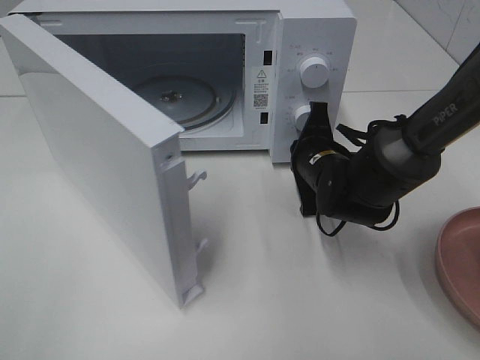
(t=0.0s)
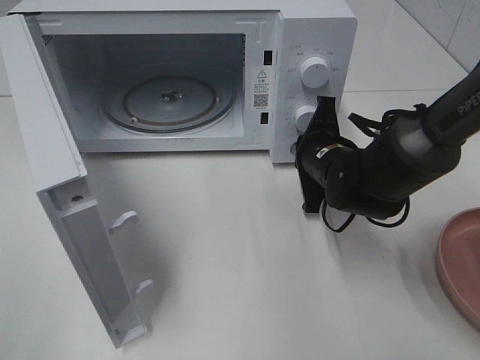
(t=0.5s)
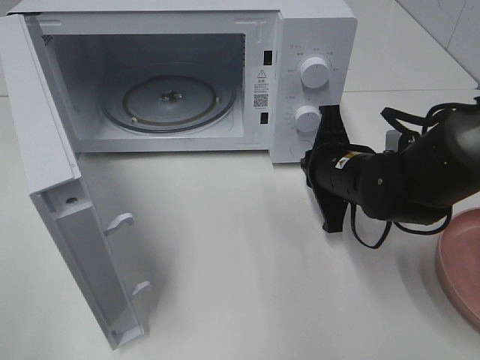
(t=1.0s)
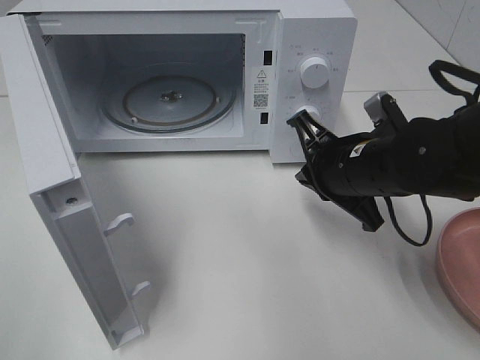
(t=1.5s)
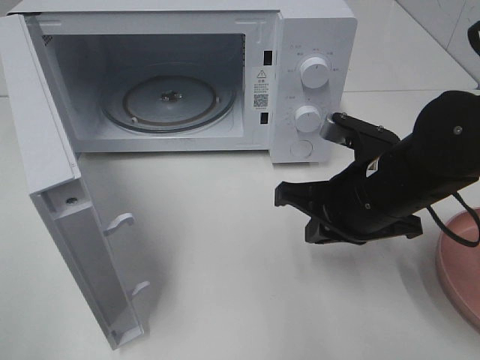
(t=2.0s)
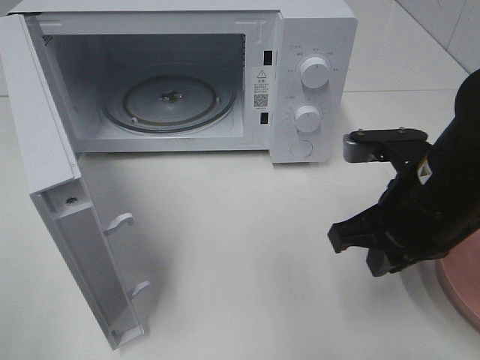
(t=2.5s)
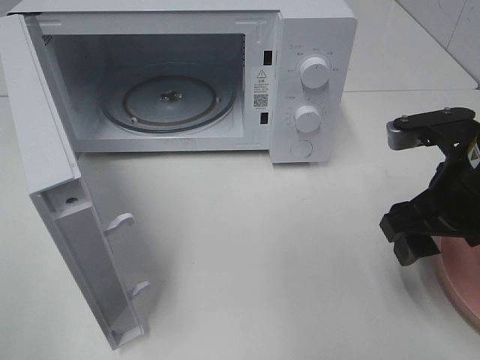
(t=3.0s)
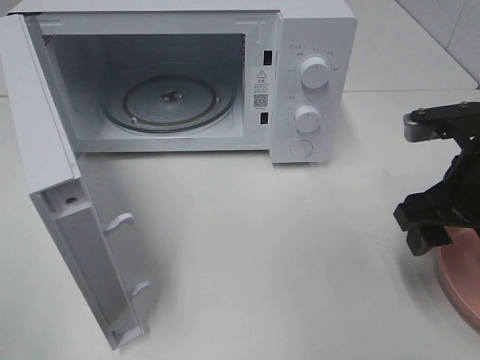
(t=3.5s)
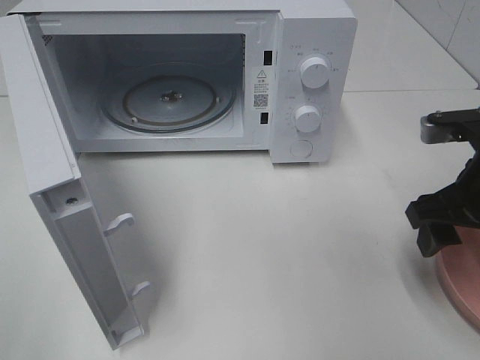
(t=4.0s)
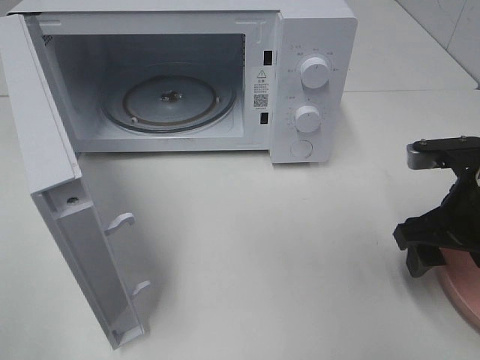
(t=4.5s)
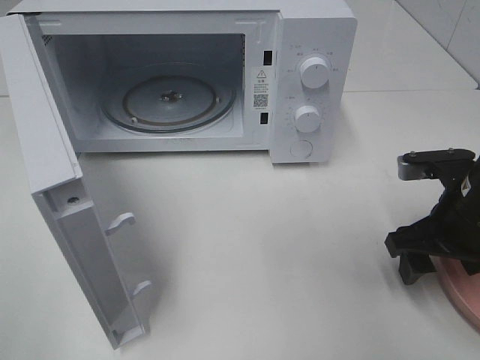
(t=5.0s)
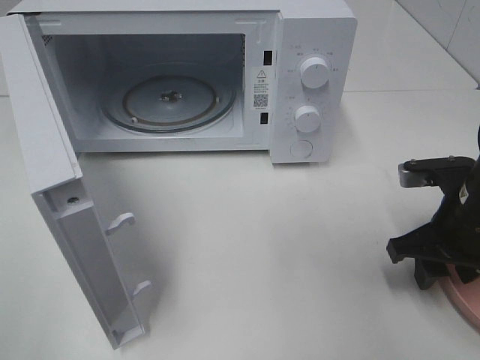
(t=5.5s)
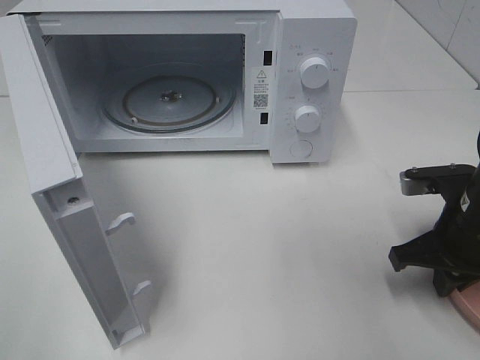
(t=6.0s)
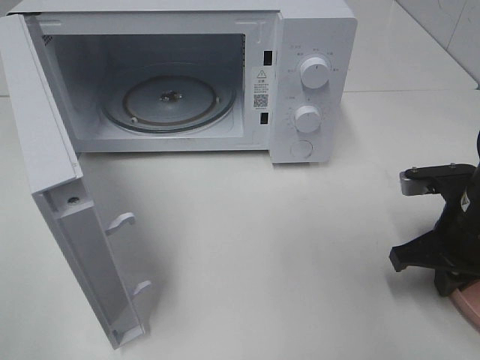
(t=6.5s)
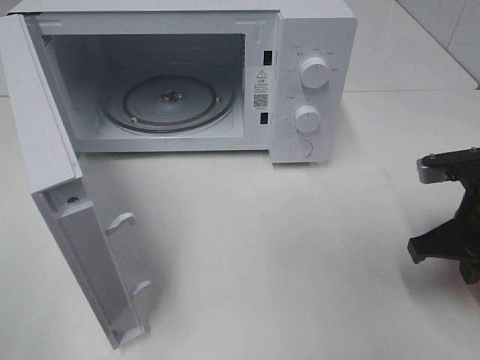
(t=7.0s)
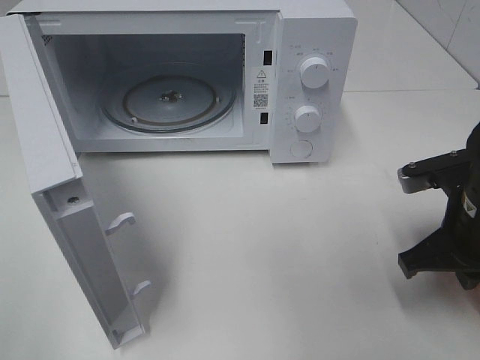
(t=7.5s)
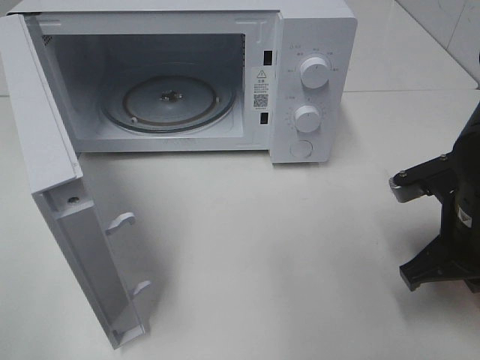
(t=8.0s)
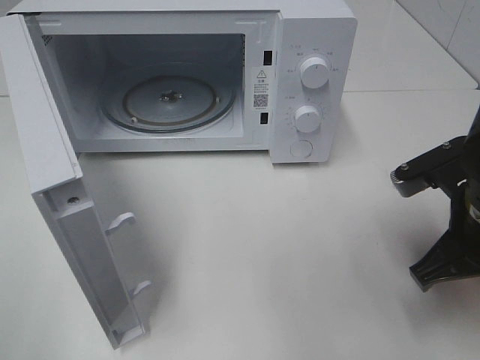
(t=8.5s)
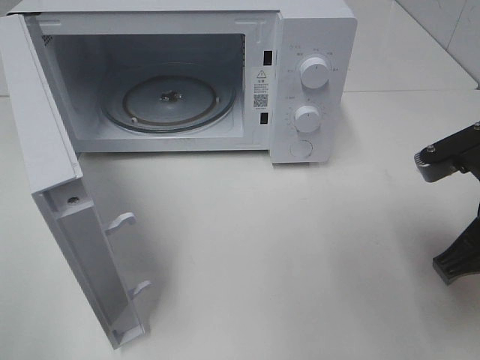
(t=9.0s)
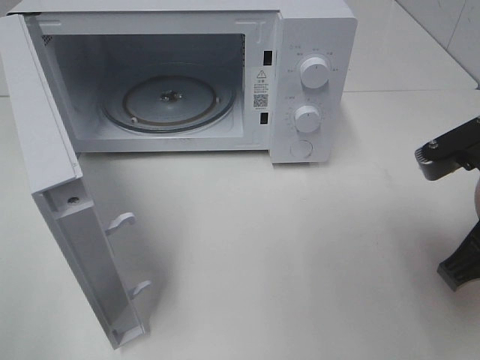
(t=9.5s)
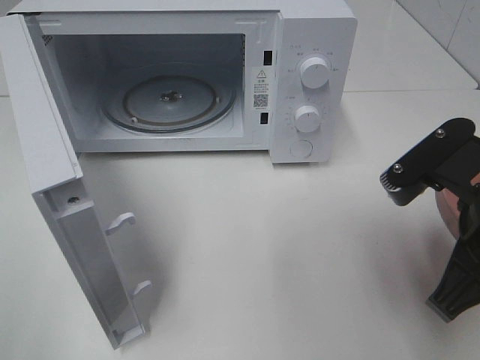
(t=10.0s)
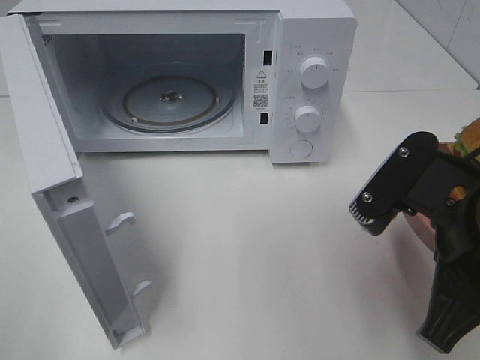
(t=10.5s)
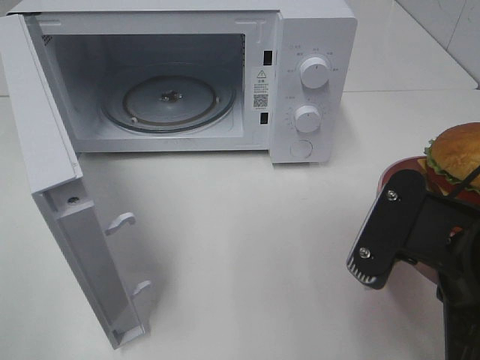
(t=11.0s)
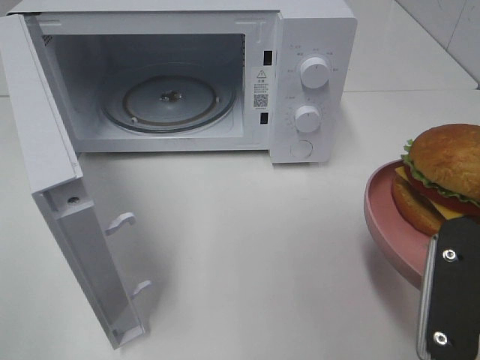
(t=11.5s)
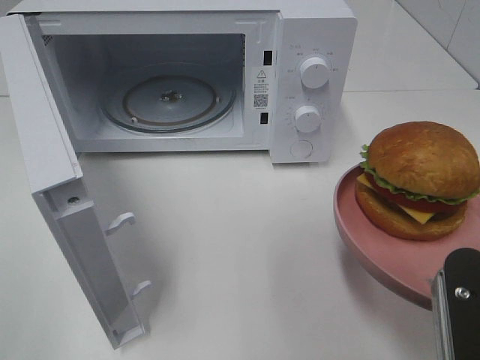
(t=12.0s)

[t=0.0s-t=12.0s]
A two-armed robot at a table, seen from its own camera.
Task of the whole recording: Heat the burger.
Step, t=1.0s to t=7.0s: Right hand: grab the plate with the hamburger.
t=0.0s to t=2.0s: The right gripper shifts roughly 15 cm backward and upward.
t=2.0s to t=4.0s: The right gripper is displaced to the right by roughly 10 cm, and opens.
t=4.0s to t=6.0s: The right gripper travels downward by some 5 cm, and closes up.
t=6.0s to t=8.0s: There are only small adjustments of the grippers.
t=8.0s to t=10.0s: The right gripper moves upward and backward, roughly 10 cm.
t=10.0s to t=12.0s: The right gripper shifts some 10 cm backward.

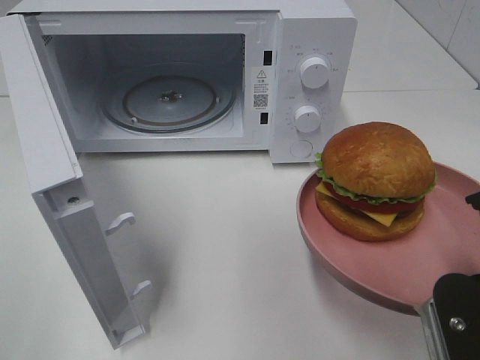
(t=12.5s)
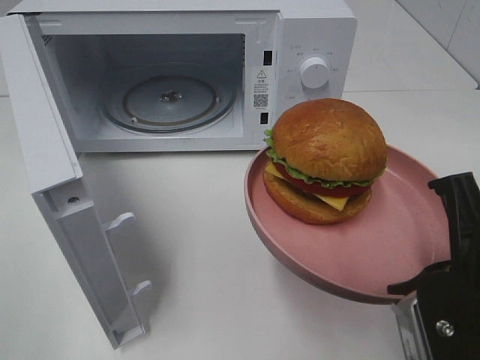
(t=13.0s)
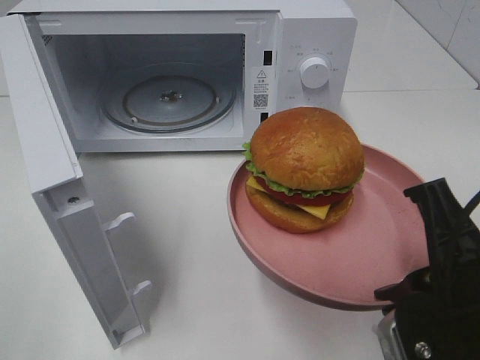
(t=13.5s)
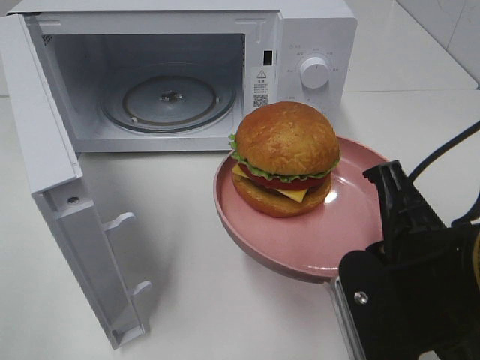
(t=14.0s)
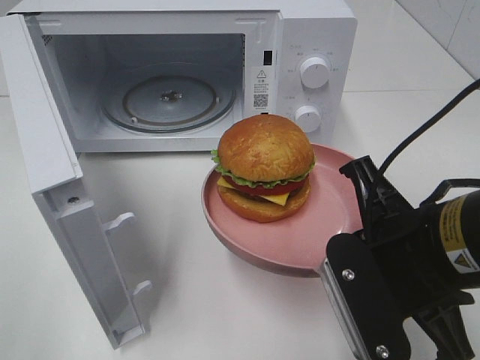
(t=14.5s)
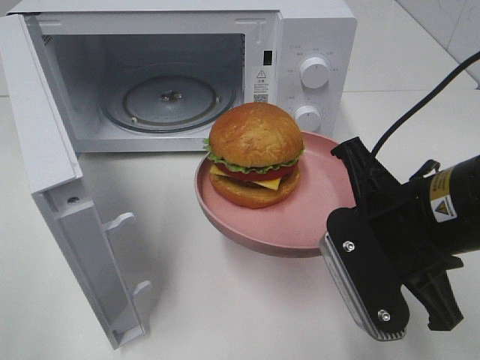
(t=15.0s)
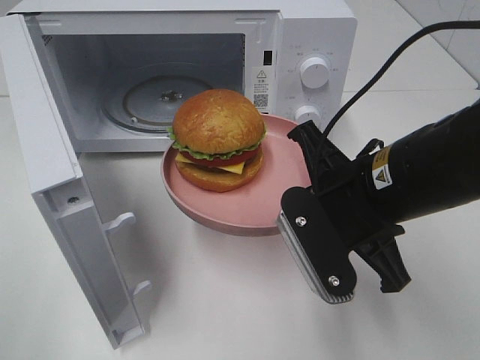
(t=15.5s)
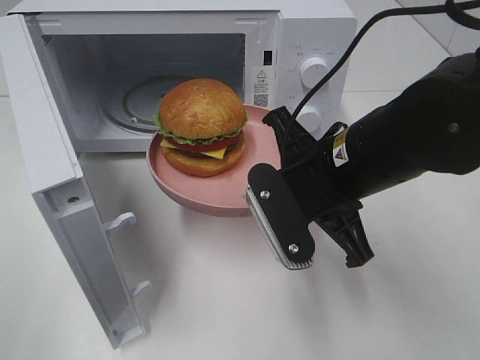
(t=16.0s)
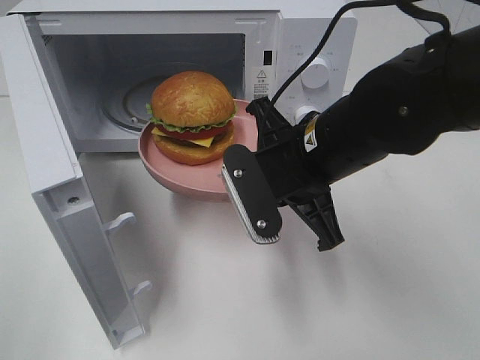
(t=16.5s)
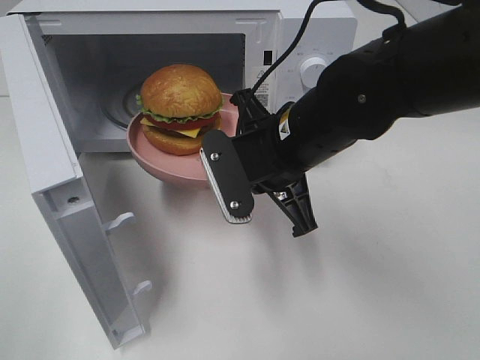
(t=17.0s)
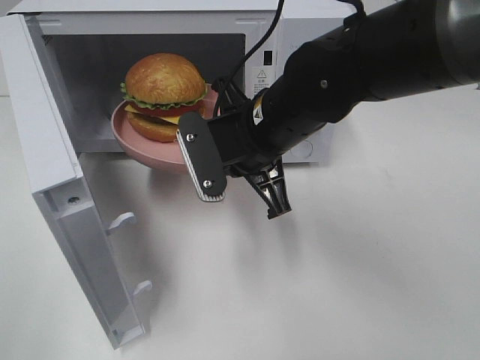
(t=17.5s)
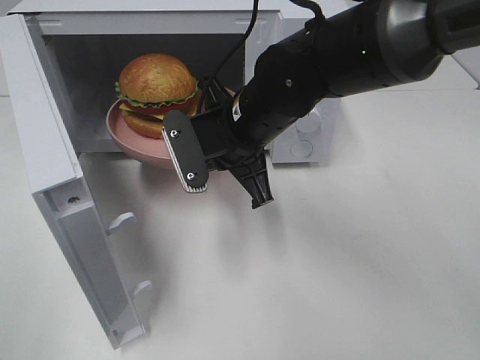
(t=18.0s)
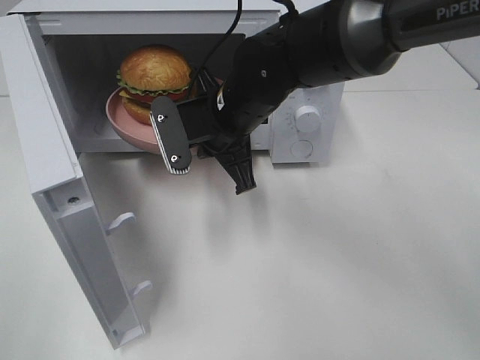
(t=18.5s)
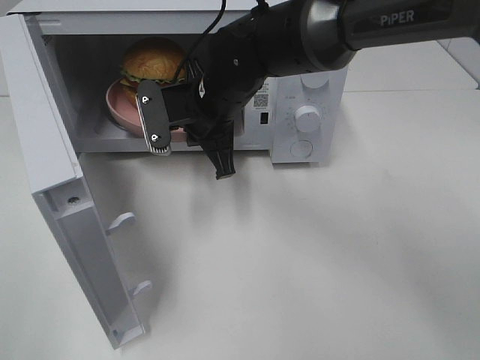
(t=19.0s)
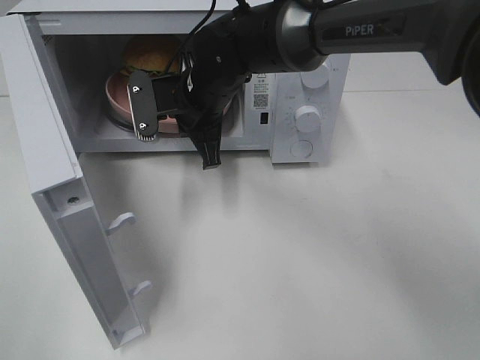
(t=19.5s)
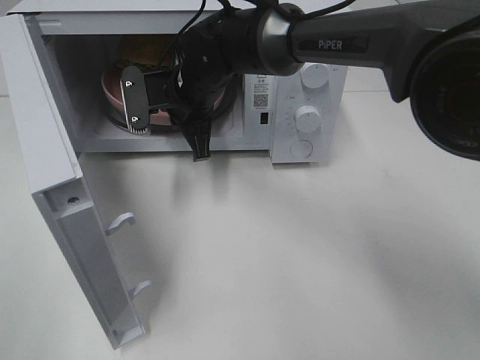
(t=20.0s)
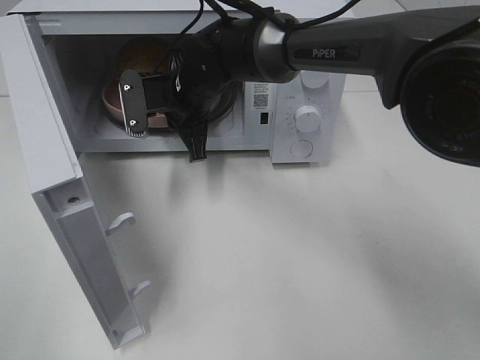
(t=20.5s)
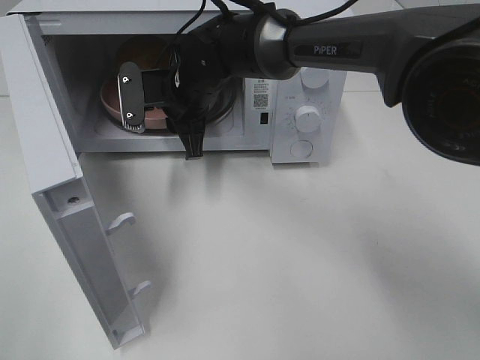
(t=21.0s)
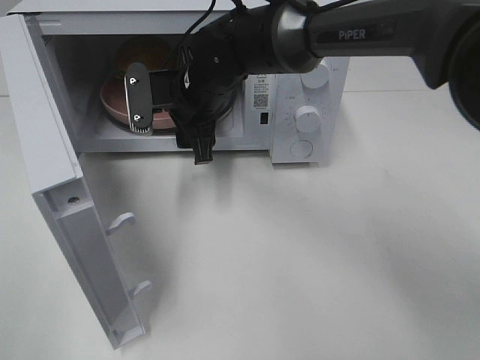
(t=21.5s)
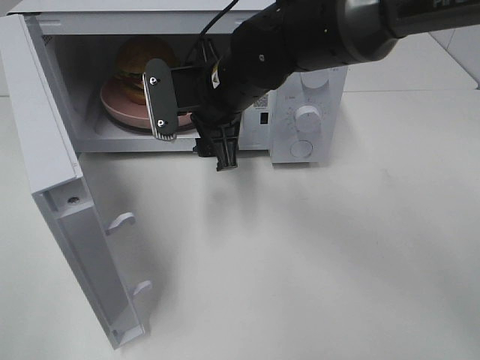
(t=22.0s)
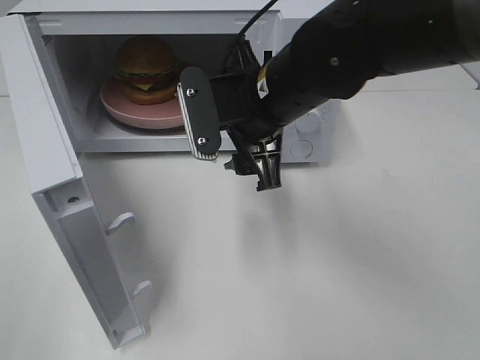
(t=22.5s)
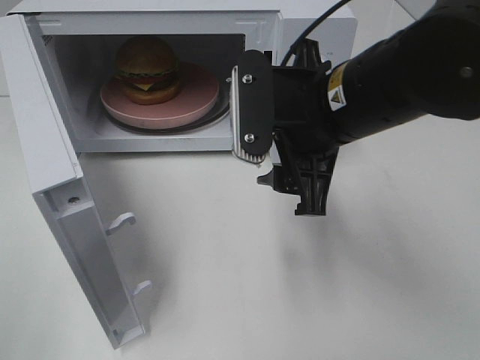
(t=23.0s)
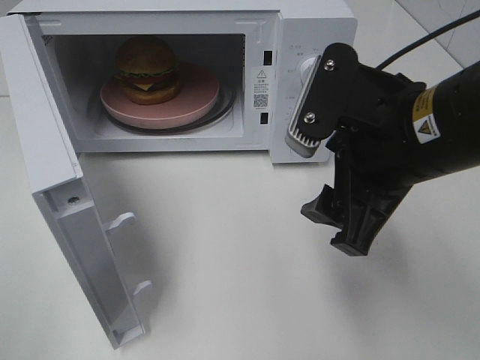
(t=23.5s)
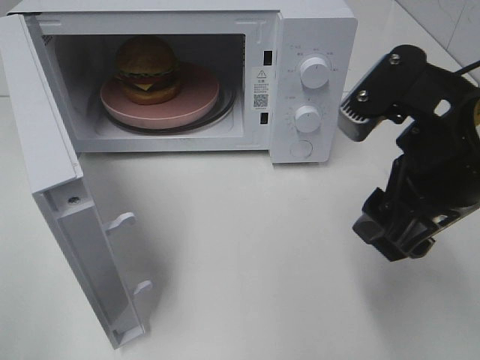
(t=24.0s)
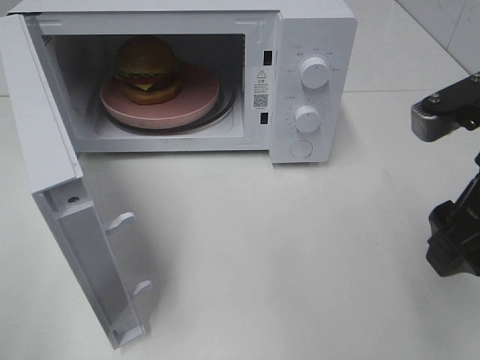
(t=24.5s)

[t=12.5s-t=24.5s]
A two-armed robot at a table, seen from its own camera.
Task of the whole recording: Heat the burger.
Step, t=12.5s to t=21.0s: Right hand: place the plate in the microwave.
t=12.5s to t=14.5s: The right gripper travels forward by approximately 5 cm.
t=14.5s to t=16.5s: The right gripper shifts roughly 15 cm forward and to the left.
t=16.5s to t=18.5s: The right gripper heads forward and to the left, covering roughly 10 cm.
t=18.5s to t=20.5s: The right gripper is displaced forward and to the left by roughly 10 cm.
t=20.5s to t=22.5s: The right gripper is displaced backward, to the right and upward by about 15 cm, and opens.
t=22.5s to t=24.5s: The right gripper heads to the right and backward, covering roughly 20 cm.

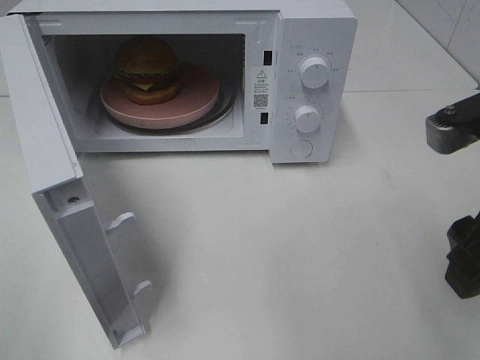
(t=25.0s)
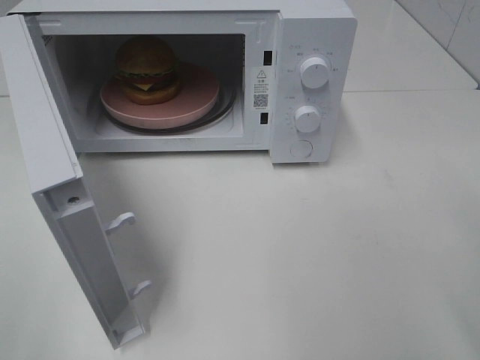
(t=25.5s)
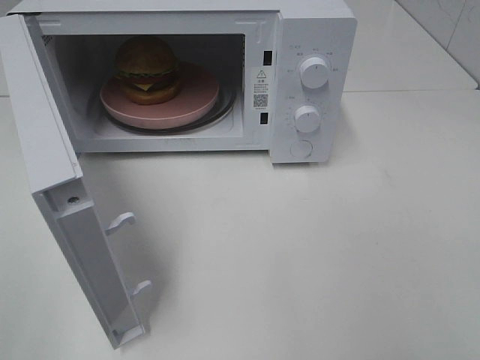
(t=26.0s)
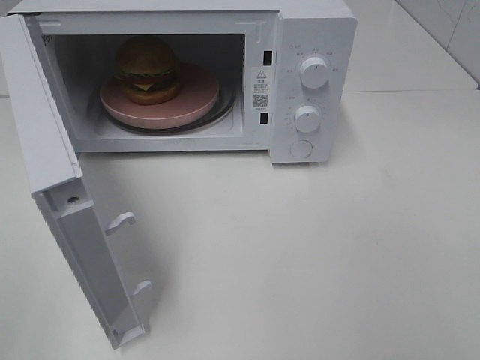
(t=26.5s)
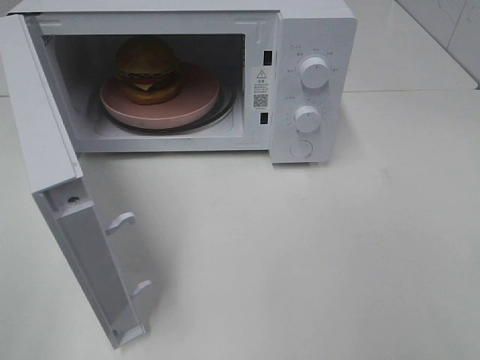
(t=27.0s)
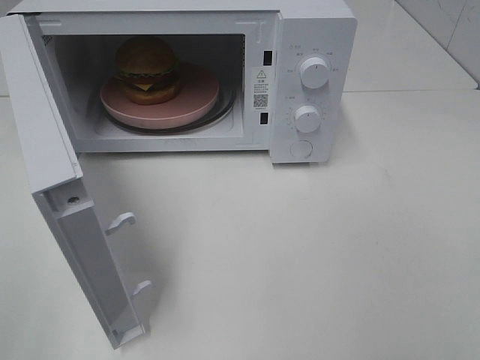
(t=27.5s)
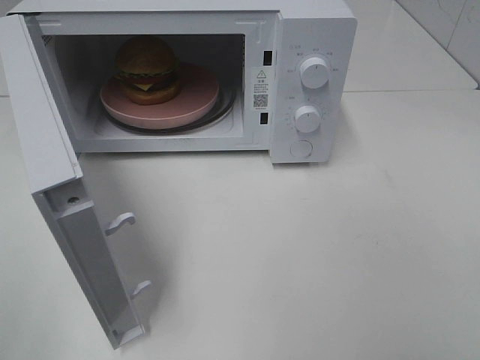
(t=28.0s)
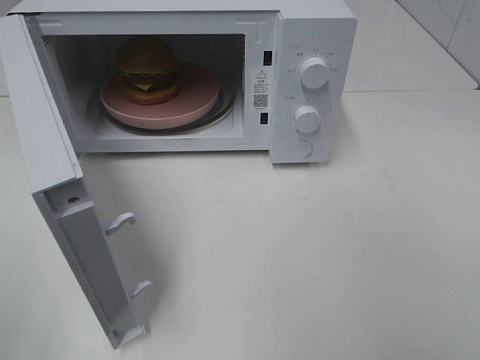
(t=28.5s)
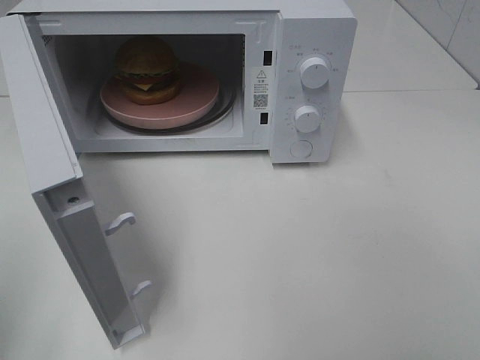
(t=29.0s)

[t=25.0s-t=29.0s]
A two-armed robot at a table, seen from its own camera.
Task of the whole recording: Heat the burger.
t=25.0s to t=27.0s: The right gripper is displaced backward and to the right by approximately 20 cm.
